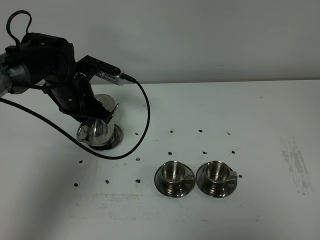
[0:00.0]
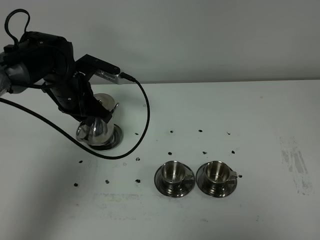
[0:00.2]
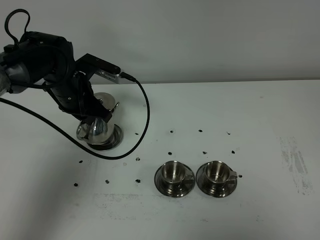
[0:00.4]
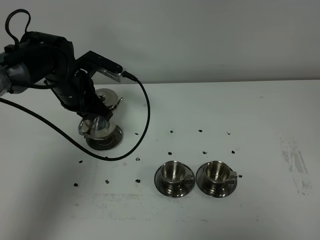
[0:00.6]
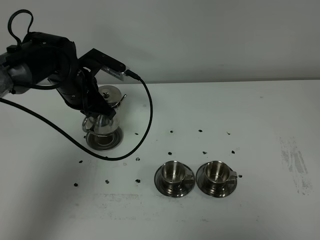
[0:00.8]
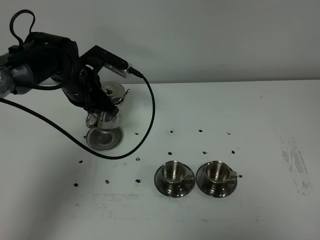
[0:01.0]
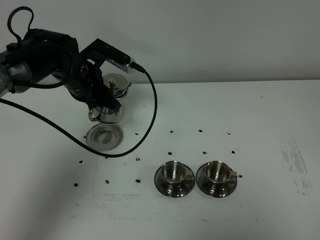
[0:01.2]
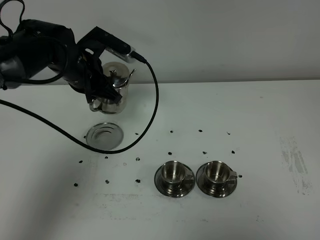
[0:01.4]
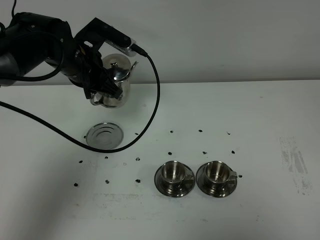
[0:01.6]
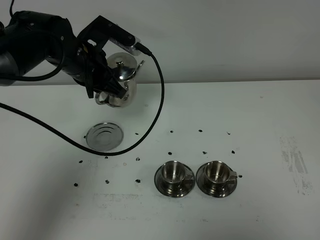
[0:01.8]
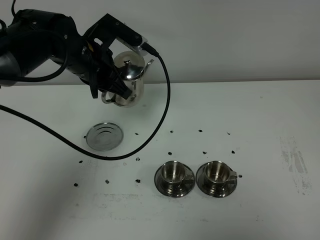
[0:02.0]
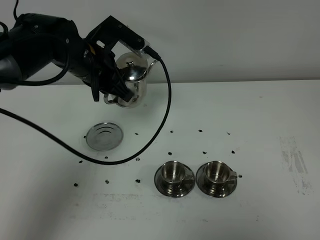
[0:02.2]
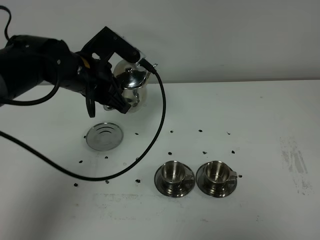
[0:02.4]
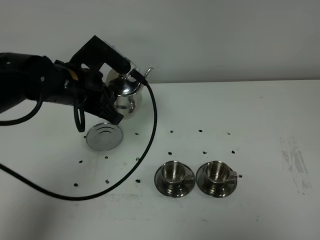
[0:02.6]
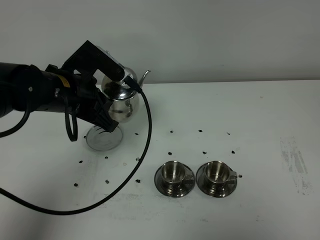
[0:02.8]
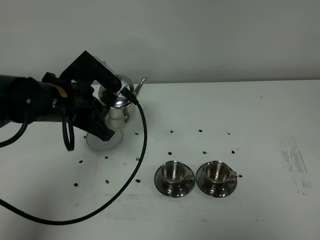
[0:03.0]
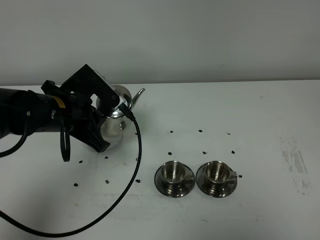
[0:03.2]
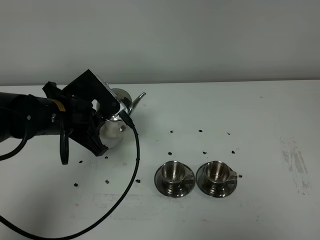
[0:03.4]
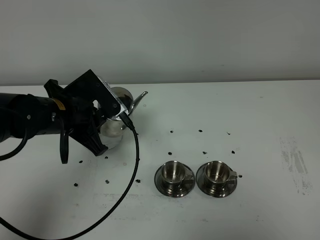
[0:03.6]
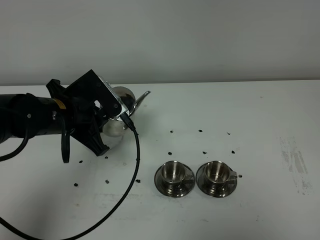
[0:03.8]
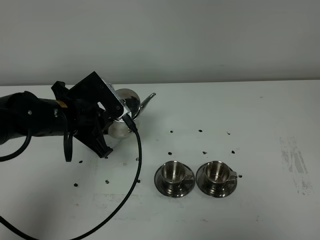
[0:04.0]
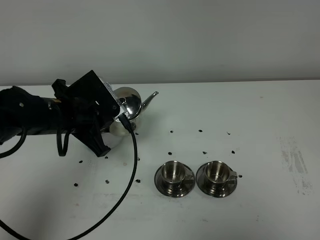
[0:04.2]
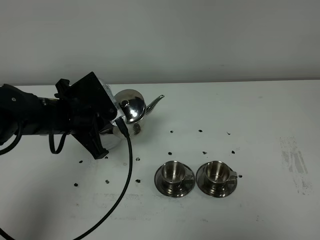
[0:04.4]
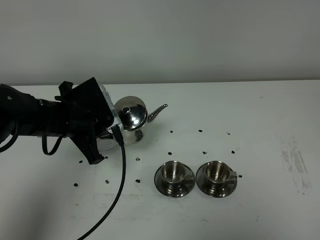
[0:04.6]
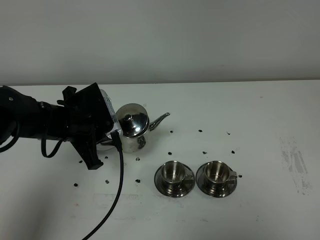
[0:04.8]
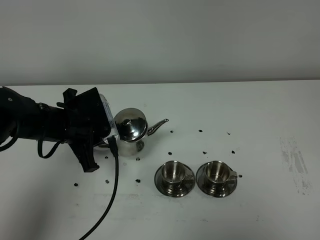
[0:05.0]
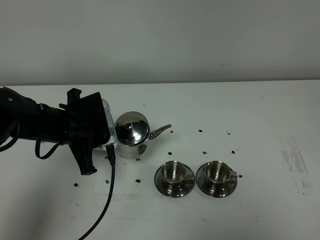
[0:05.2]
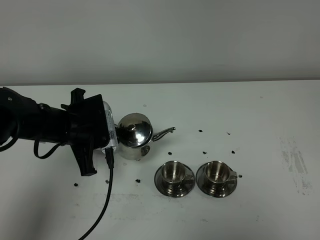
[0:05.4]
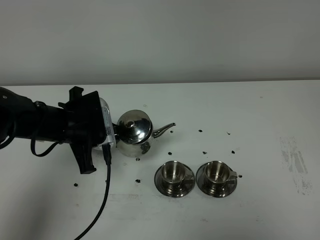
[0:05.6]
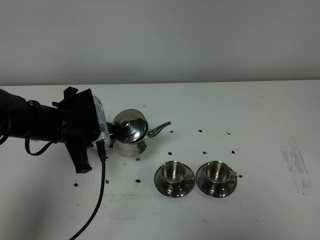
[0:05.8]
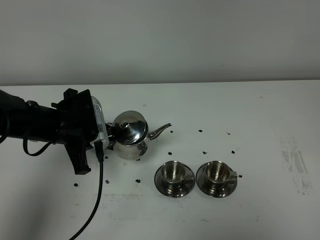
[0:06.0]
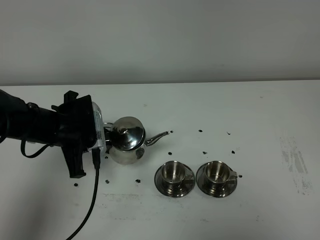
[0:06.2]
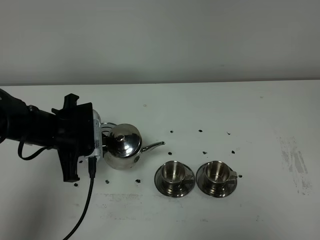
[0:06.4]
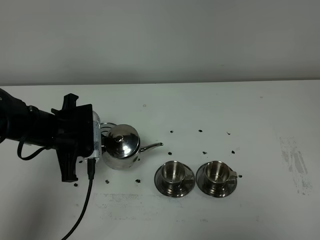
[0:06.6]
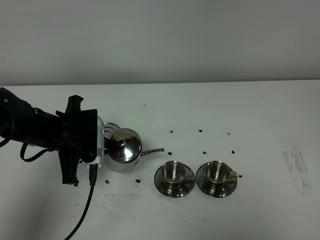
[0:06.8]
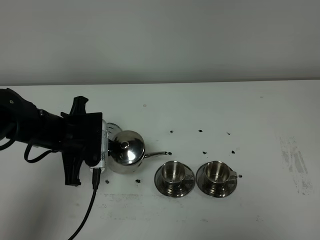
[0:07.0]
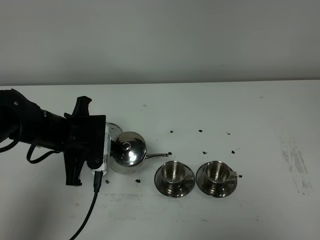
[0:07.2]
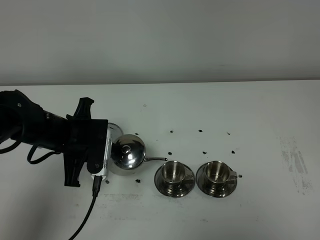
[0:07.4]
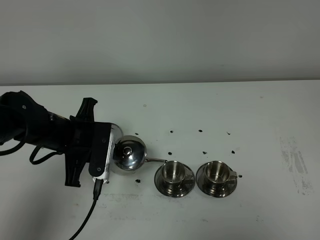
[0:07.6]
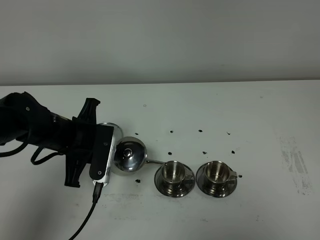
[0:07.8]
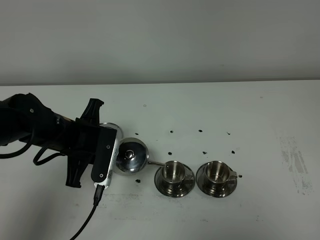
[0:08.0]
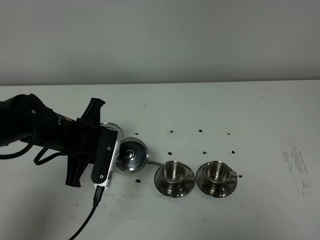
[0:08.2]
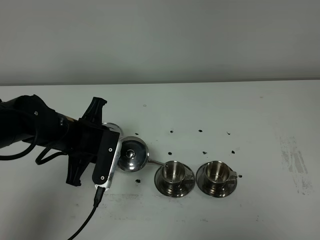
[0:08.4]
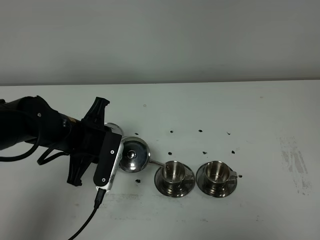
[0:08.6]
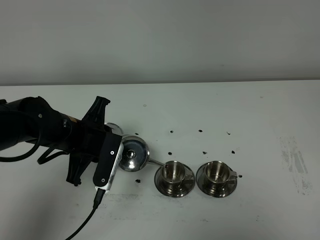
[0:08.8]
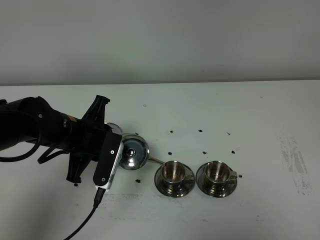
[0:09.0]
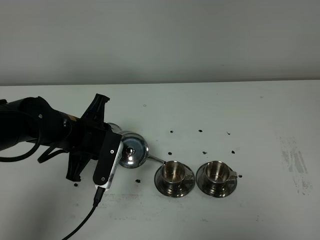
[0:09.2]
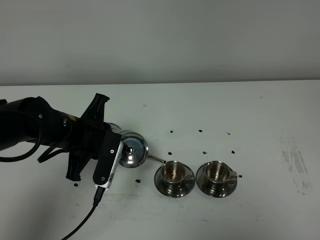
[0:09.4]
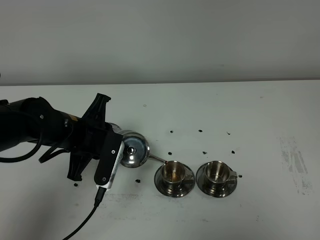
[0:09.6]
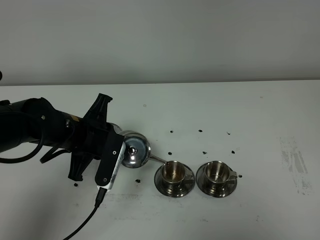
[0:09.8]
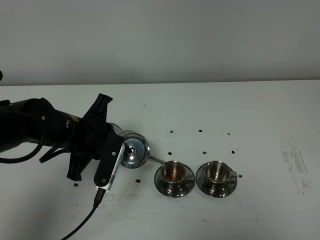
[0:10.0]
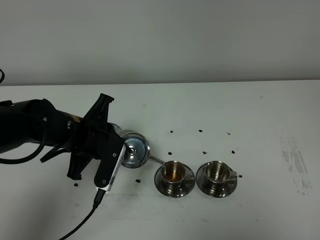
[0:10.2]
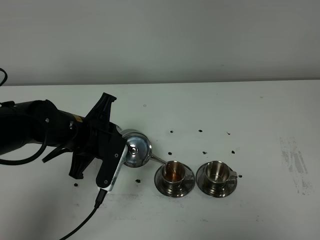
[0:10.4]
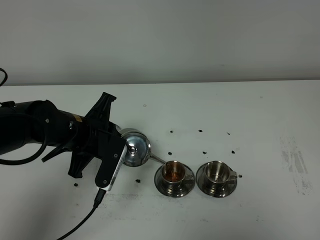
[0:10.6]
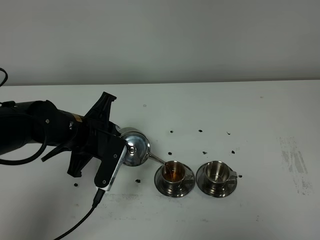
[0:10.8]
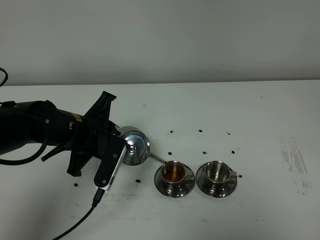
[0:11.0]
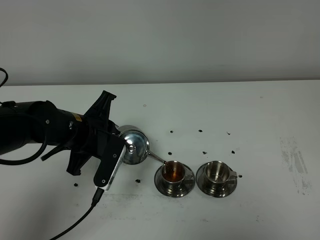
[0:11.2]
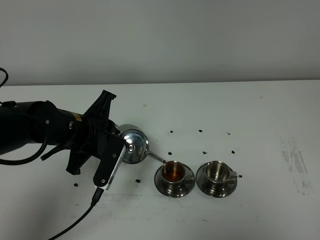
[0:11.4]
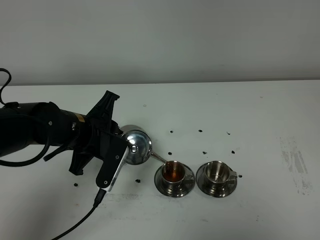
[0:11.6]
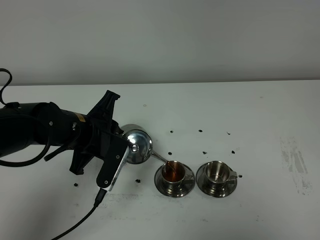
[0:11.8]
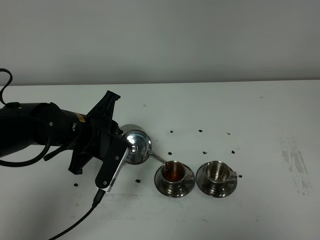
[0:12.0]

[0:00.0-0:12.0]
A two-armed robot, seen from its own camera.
Task of the whole recording: grasp the stainless steel teapot and pour the tea into the two stainless steel teacups one by one, put the stainless steel teapot back in its original place.
0:00.0 to 0:01.6: The left gripper is displaced upward by about 5 cm.
0:01.6 to 0:03.0: The left gripper is displaced backward by some 10 cm.
0:03.0 to 0:04.4: The grippers make only small movements.
0:04.4 to 0:06.0: The grippers make only small movements.
0:07.6 to 0:09.0: The grippers make only small movements.
0:09.0 to 0:12.0: The grippers make only small movements.

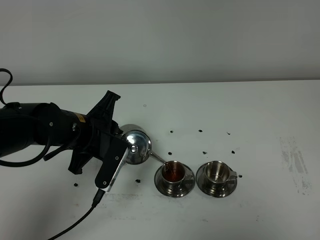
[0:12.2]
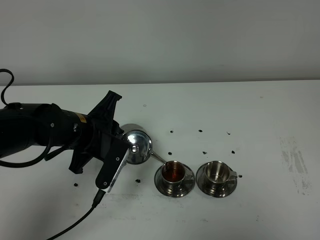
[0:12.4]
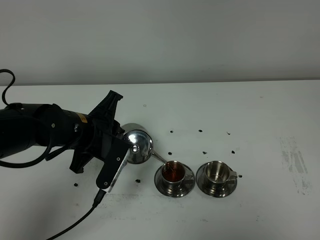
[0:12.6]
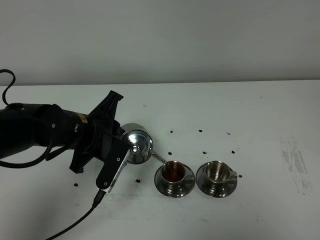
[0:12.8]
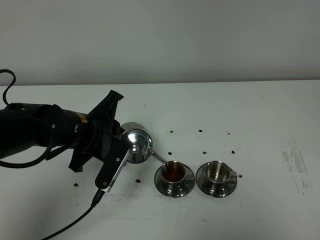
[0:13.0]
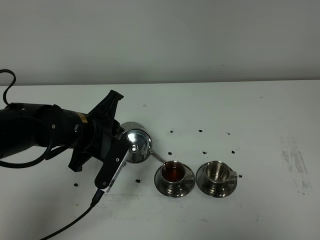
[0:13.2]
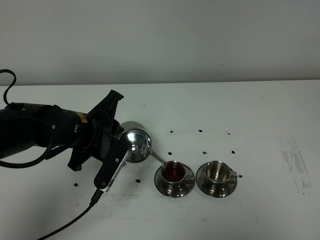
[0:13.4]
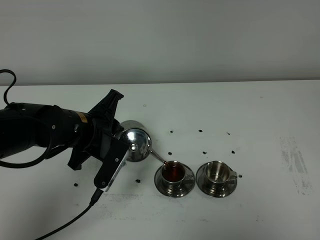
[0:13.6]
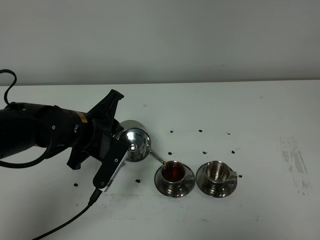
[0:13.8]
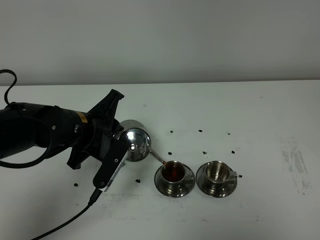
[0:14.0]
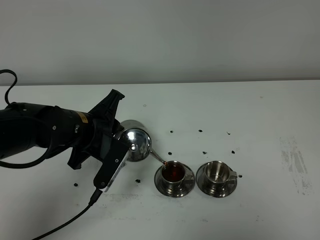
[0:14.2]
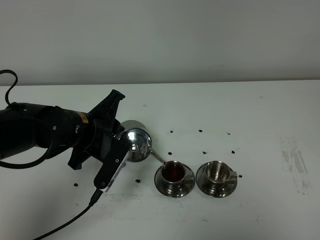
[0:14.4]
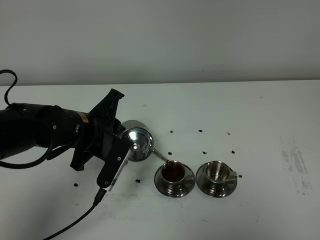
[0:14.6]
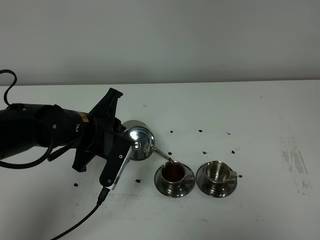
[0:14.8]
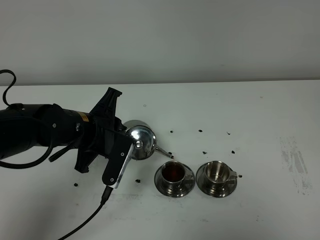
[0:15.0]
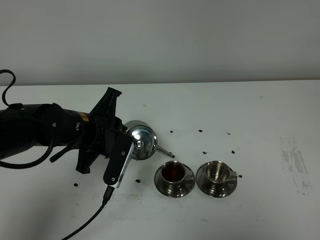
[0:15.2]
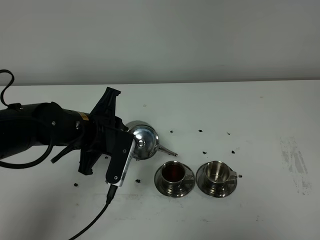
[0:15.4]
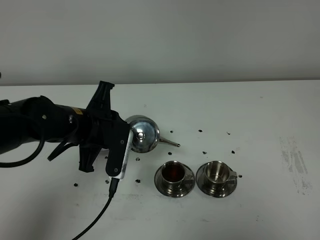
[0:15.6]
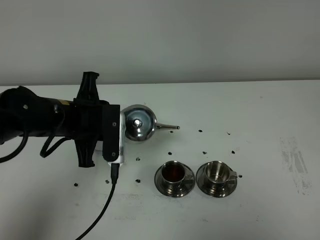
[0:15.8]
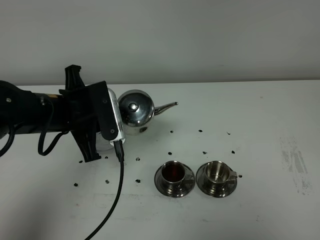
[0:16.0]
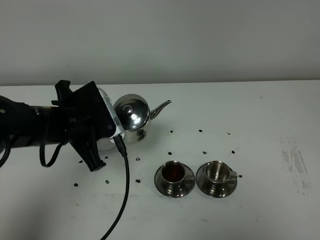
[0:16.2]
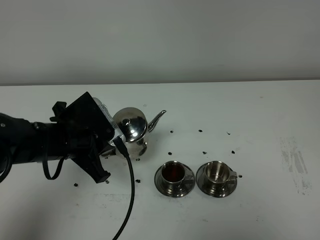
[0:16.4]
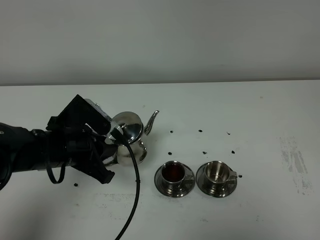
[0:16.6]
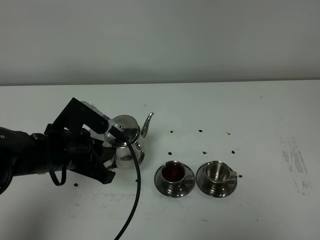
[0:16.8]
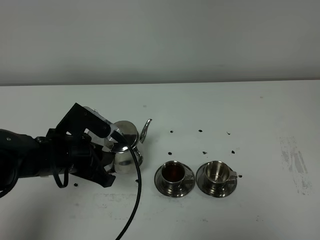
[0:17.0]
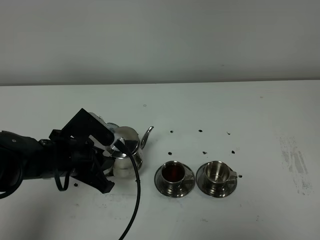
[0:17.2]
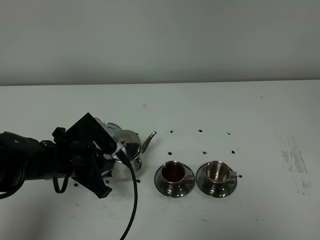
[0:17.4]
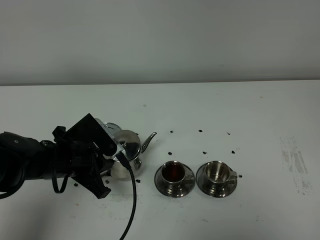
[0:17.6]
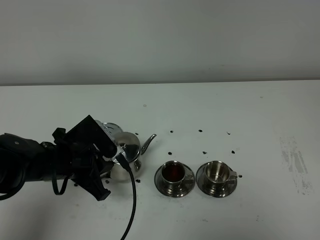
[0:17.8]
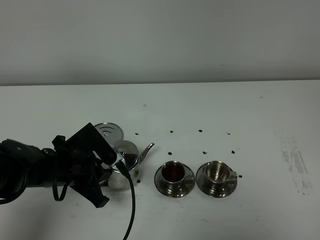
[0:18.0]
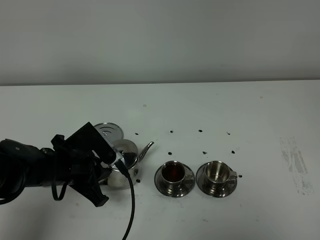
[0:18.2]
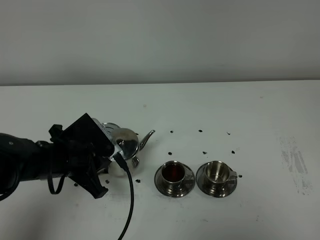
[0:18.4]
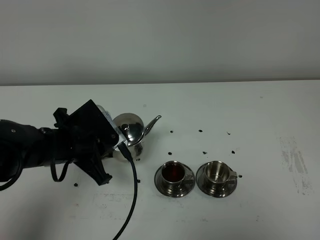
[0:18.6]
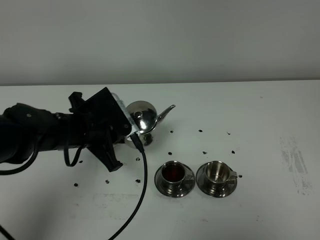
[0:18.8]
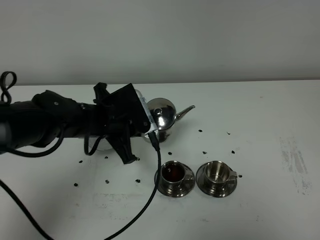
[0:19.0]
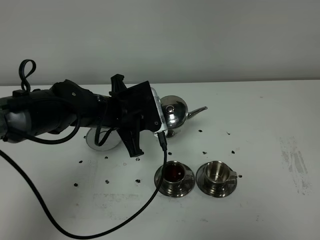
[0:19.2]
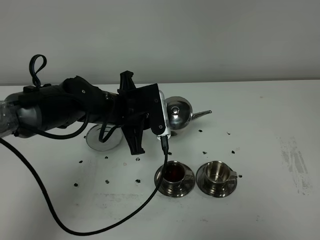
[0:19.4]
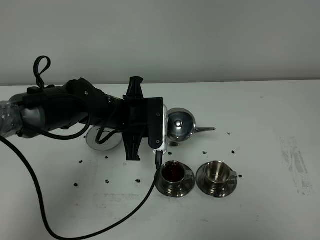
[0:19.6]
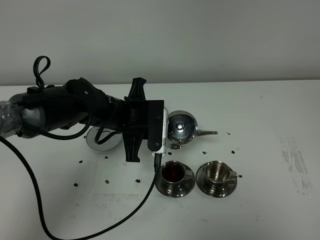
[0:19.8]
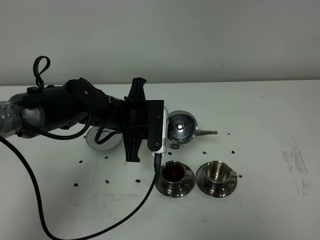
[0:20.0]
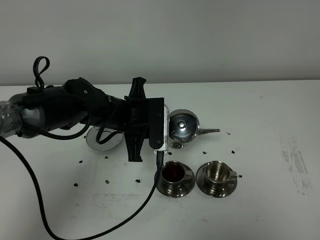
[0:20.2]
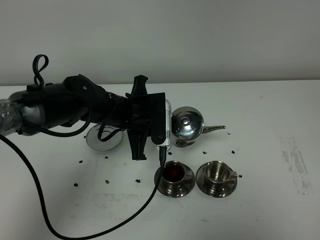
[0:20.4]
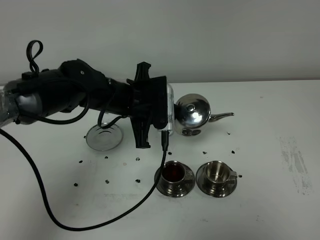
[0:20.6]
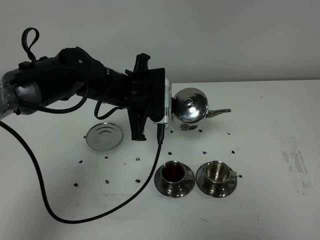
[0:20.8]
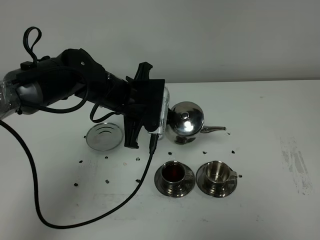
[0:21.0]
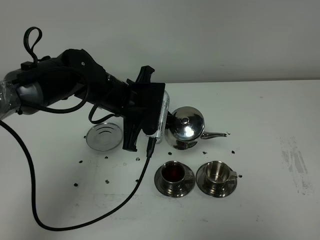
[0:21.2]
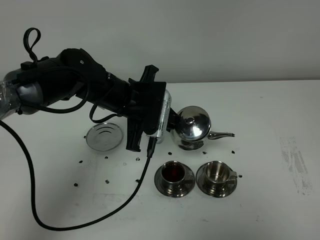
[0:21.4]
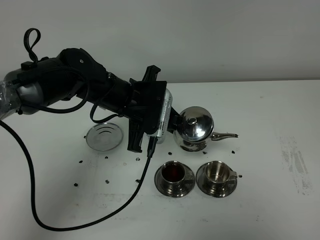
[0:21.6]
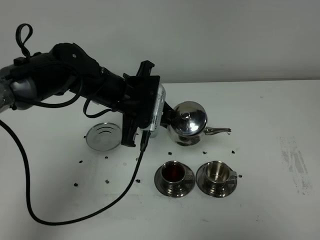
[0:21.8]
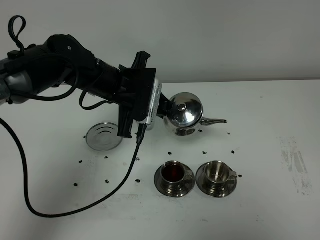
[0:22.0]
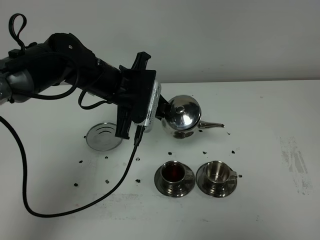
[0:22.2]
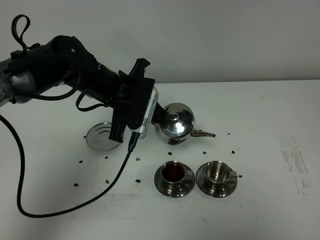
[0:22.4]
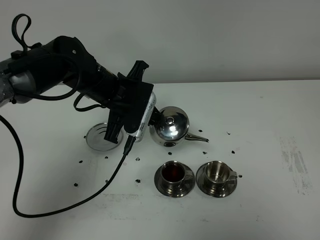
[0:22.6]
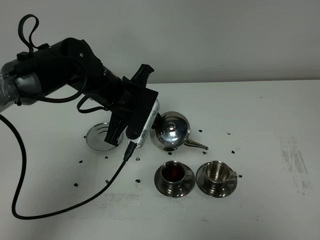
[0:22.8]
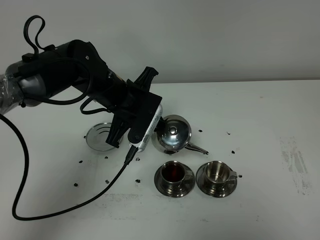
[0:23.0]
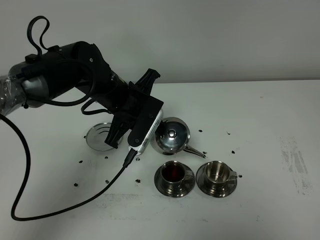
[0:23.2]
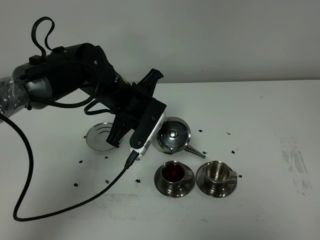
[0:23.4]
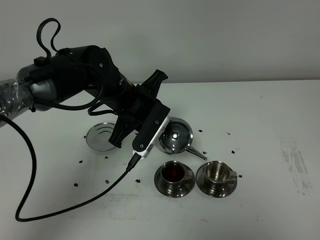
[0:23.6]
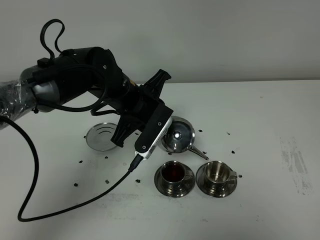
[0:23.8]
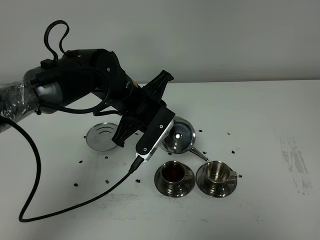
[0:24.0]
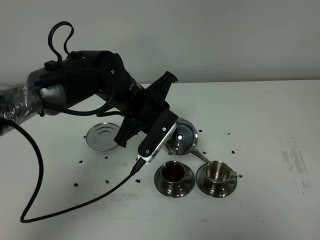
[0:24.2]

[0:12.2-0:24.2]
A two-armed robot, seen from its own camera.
Task of the whole recording: grasp the stainless steel teapot and pour the tea into the two stainless steel teacups one by one, put the stainless steel teapot back in its original place.
0:12.2 to 0:15.2: The grippers make only small movements.
0:15.2 to 0:16.6: The left gripper shifts by about 5 cm.
0:16.6 to 0:18.2: The grippers move only a little.
0:18.2 to 0:19.8: The left gripper travels to the right and forward by roughly 15 cm.
0:19.8 to 0:22.6: The grippers make only small movements.
0:22.6 to 0:24.2: The left gripper ends up roughly 5 cm from where it was.
